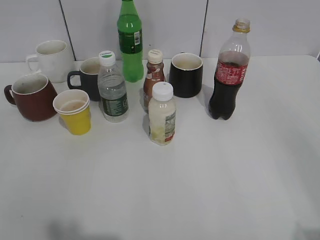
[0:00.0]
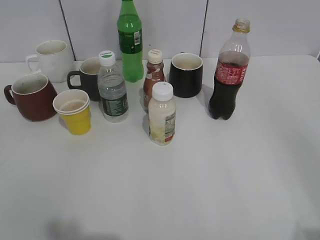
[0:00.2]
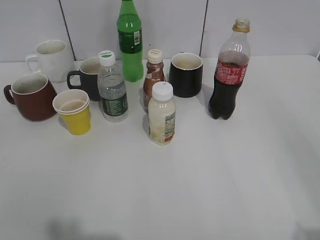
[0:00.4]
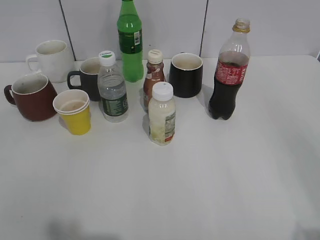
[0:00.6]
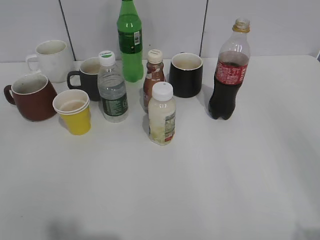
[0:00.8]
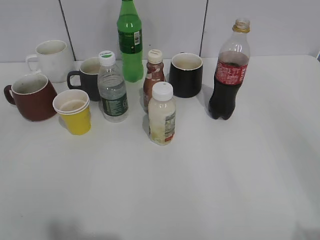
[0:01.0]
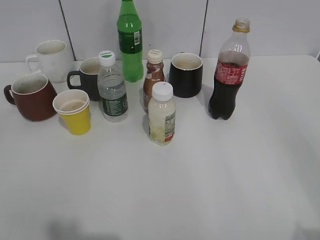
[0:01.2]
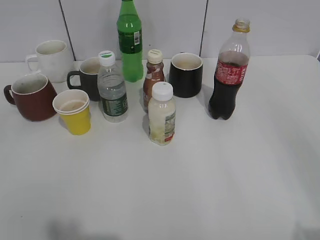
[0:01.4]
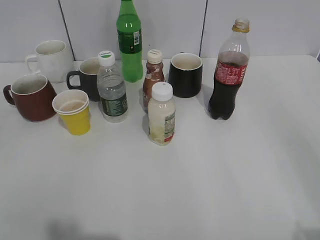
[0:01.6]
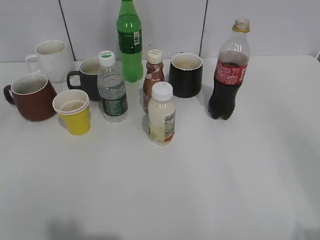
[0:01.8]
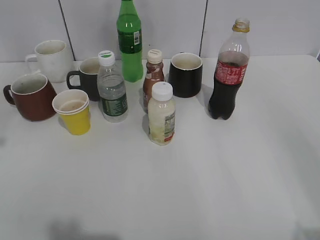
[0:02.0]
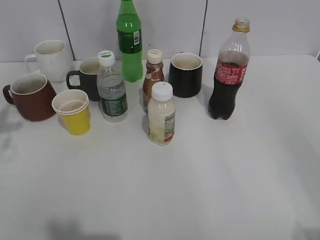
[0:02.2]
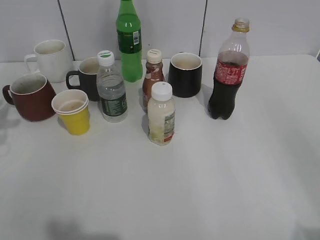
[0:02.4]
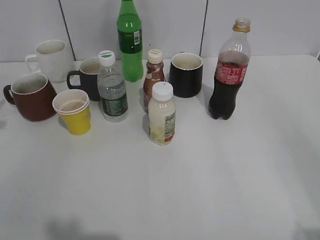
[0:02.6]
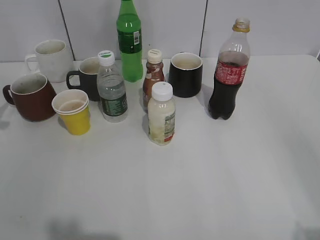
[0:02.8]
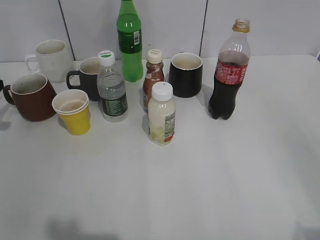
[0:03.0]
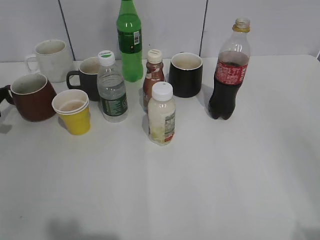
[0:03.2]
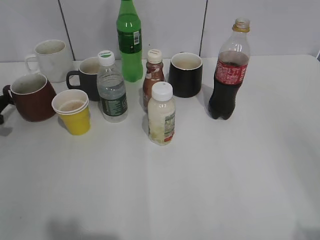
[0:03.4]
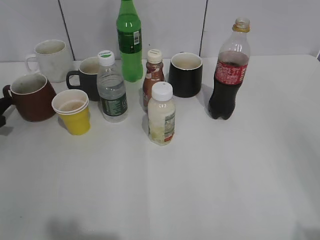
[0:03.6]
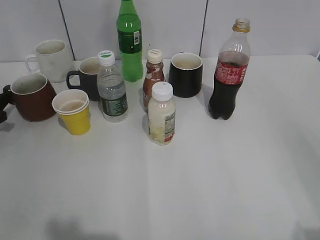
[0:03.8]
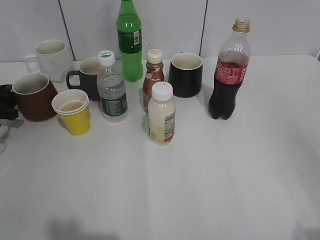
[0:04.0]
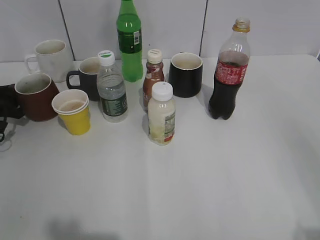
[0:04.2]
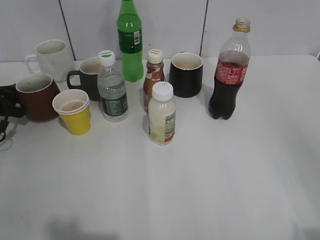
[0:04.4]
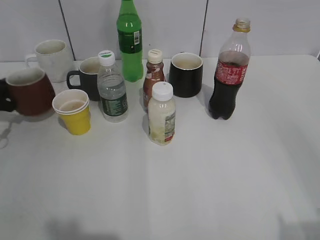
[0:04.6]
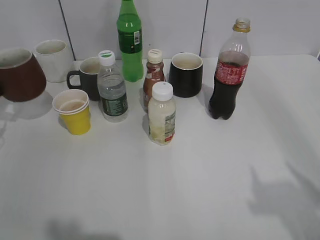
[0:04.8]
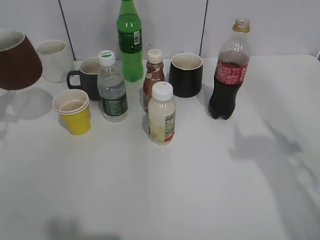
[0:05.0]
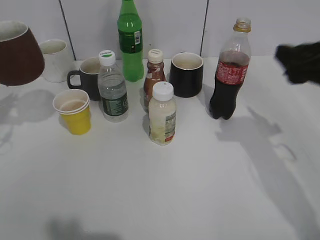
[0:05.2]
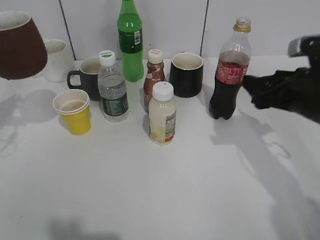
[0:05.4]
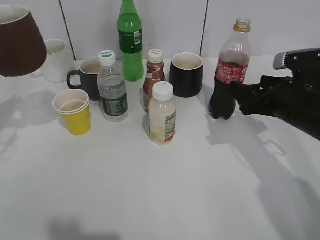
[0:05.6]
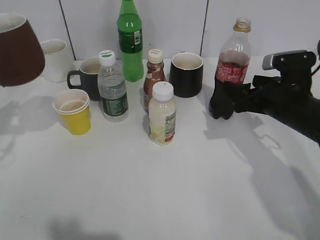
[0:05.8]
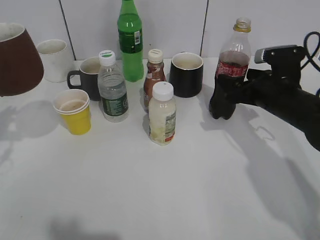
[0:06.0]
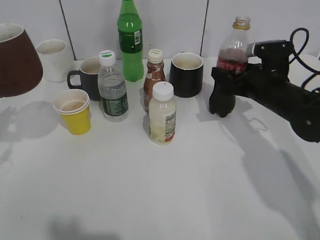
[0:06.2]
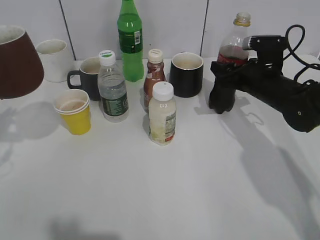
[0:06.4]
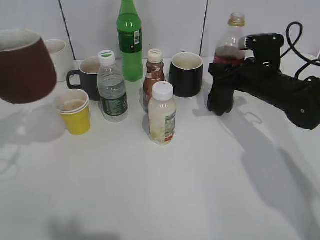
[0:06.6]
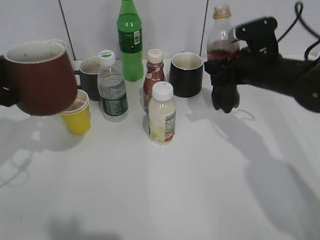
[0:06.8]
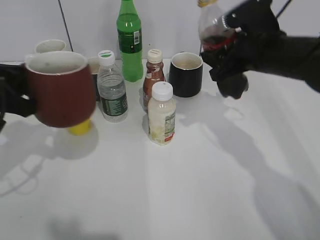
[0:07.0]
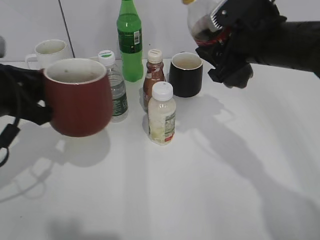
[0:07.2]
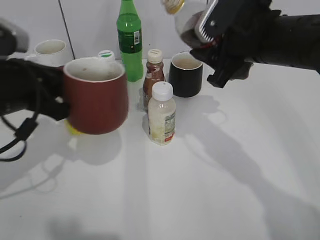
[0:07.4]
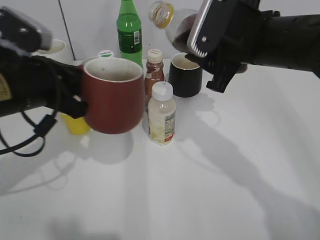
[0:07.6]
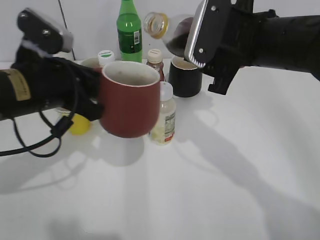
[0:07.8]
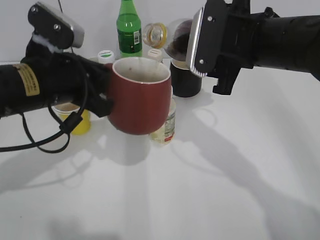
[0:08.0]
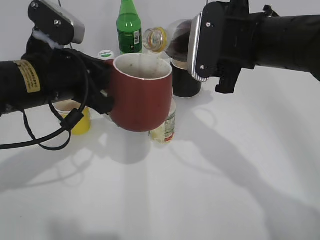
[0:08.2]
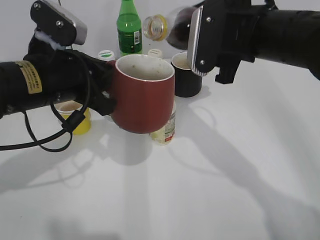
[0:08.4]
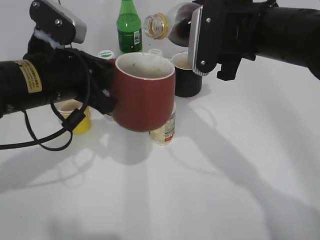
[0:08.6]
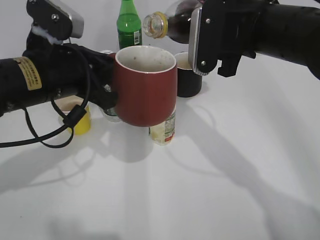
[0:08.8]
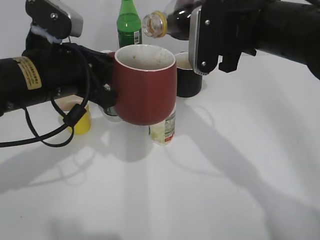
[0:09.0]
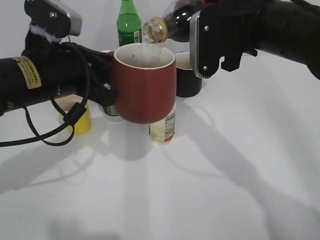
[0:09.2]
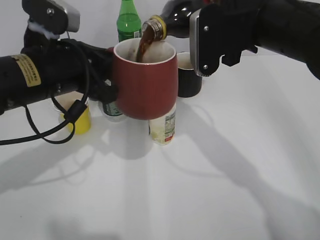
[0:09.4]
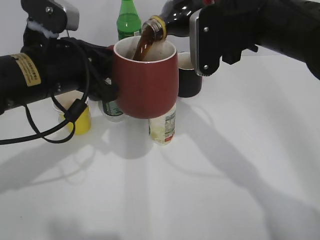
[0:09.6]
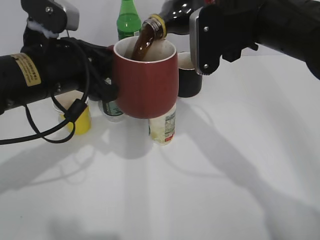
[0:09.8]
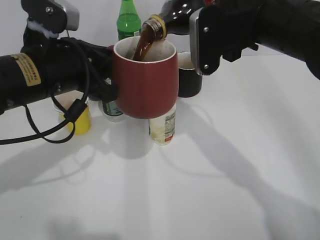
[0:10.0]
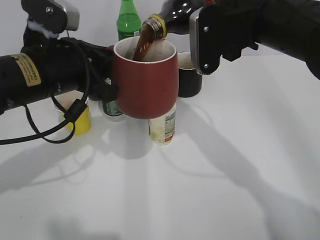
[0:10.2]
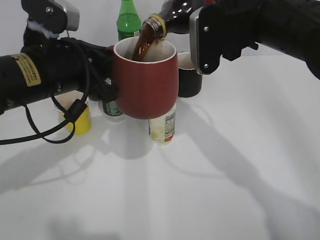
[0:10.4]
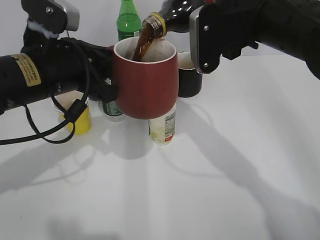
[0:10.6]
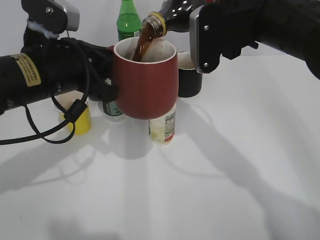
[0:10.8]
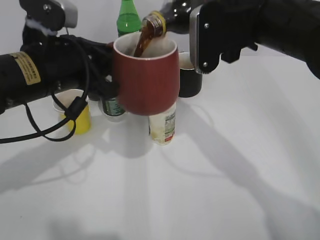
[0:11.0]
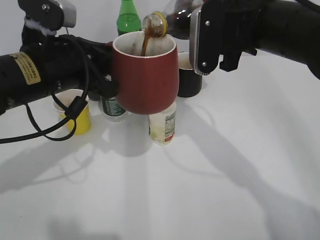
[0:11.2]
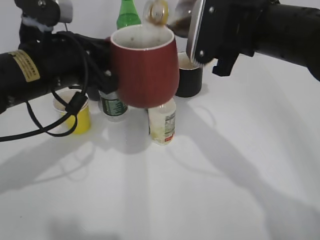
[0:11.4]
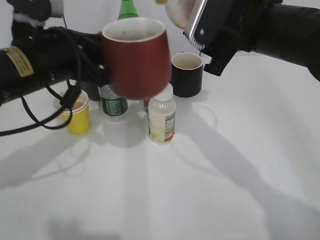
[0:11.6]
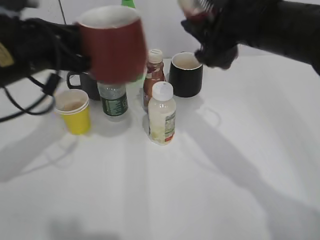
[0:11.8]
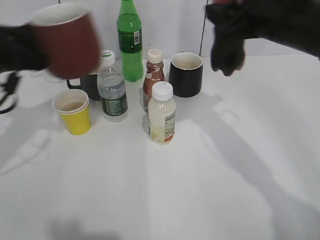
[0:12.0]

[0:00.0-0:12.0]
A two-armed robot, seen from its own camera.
Step, 0:01.4 to 0:04.2: Grasp the red cup with left gripper.
Step, 0:04.6 to 0:06.4: Lift the red cup with left gripper.
Step, 0:06.6 to 0:11.8: Pour the cola from bottle to cup with right gripper.
0:01.6 to 0:03.0: The left gripper moves forward and downward, approximately 40 cm.
0:03.0 to 0:04.4: The left gripper shifts approximately 5 cm downward, and closes its fingers.
0:04.4 to 0:06.0: The right gripper shifts some 35 cm forward and downward, and opens; the left gripper is displaced upward and backward by some 20 cm.
0:06.0 to 0:07.6: The right gripper is displaced upward and to the left by approximately 15 cm, and closes up; the left gripper travels to the right by approximately 15 cm.
0:09.0 to 0:10.4: The grippers make only small movements.
0:10.4 to 0:12.0: The left gripper travels to the left by roughly 10 cm.

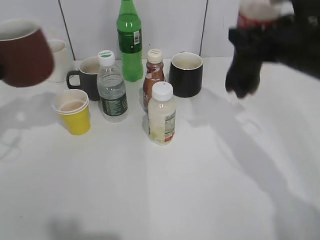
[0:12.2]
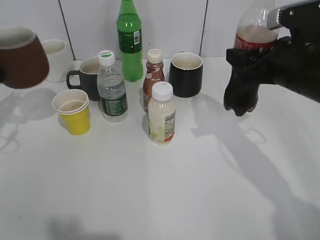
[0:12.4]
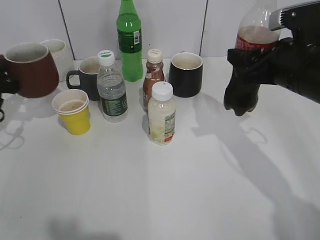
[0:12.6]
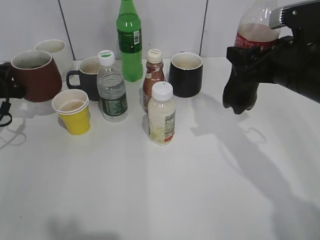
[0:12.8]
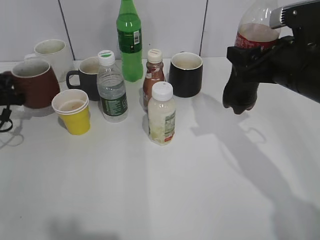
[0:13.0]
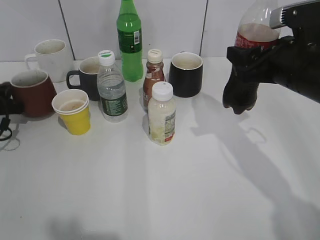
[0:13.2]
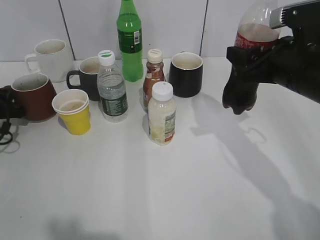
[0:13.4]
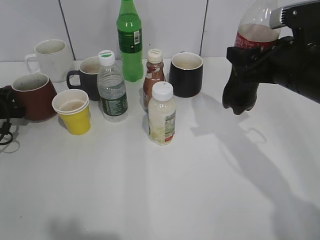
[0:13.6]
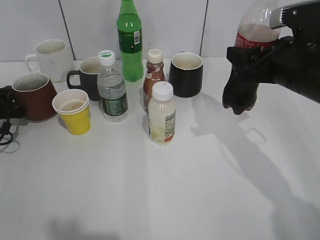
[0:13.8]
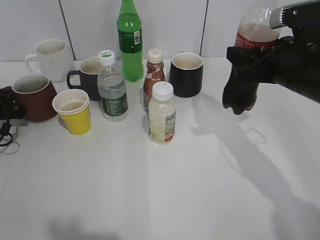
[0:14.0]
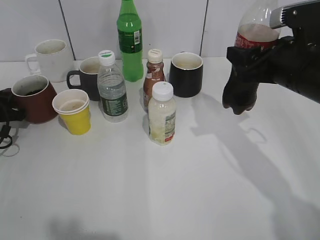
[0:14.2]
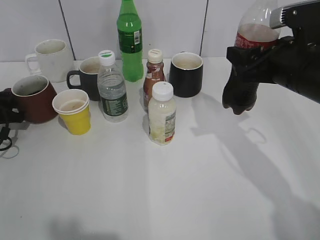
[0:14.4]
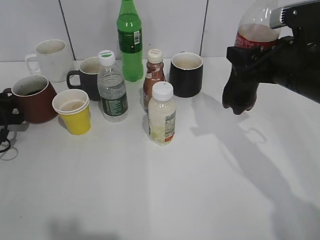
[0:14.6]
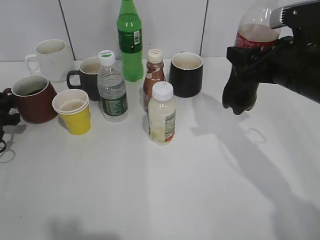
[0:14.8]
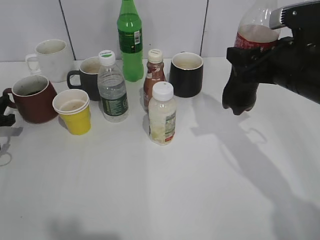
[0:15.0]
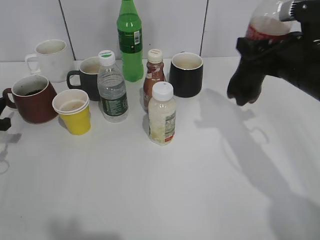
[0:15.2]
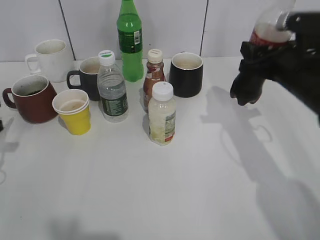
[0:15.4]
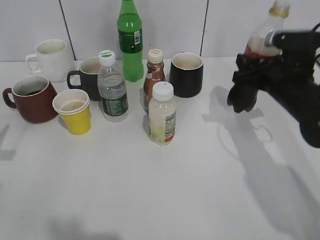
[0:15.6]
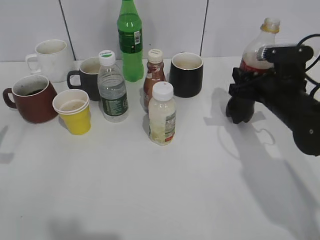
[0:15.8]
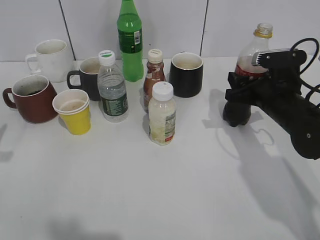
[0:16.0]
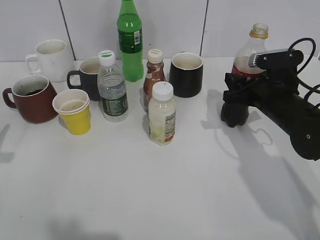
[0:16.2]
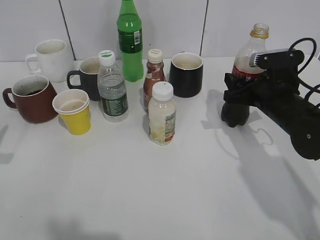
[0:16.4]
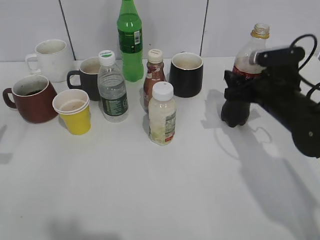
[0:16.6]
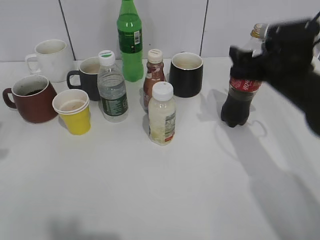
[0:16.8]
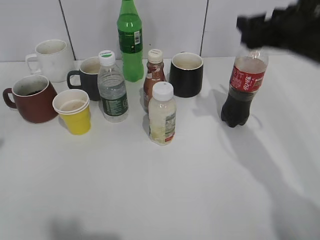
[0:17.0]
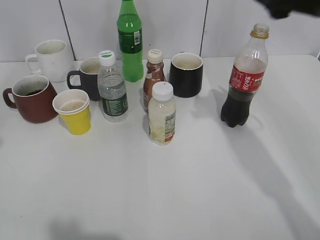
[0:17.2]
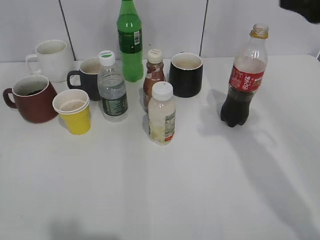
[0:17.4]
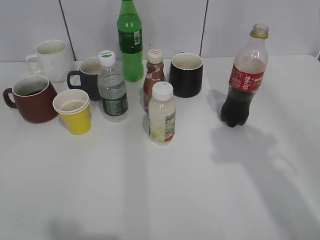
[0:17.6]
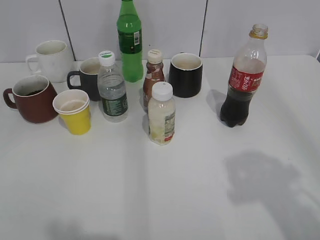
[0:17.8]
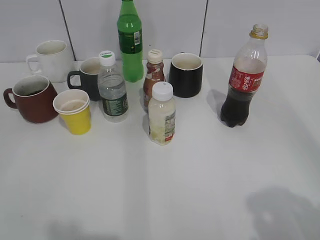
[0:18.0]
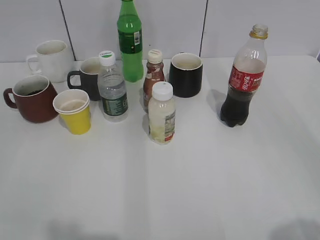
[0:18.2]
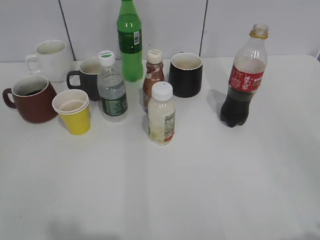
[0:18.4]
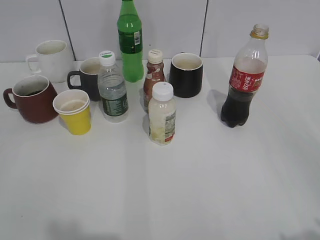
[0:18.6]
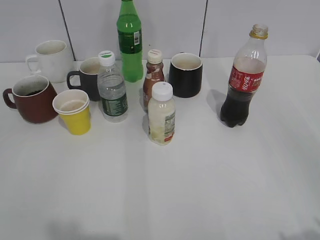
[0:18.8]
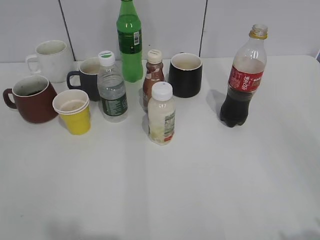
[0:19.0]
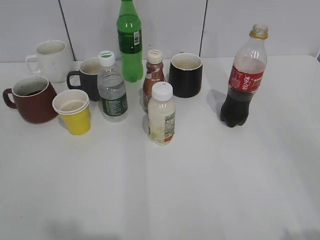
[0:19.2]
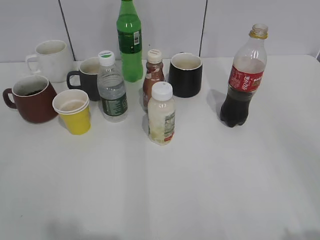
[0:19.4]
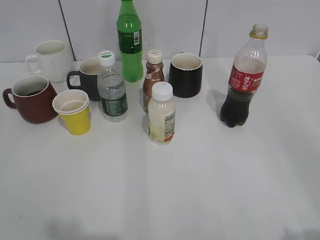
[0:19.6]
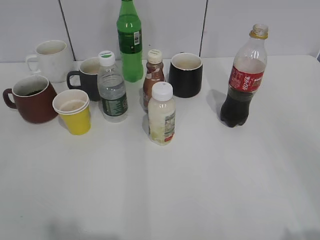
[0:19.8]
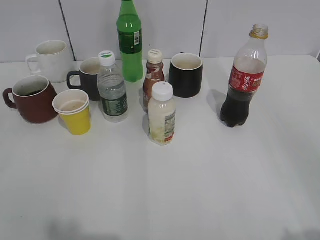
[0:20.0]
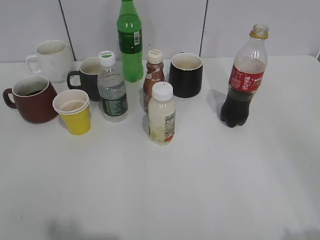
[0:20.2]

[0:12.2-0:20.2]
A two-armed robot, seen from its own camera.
Step, 0:12.2 to 0:16.8: Place the cola bottle on the table with right gripper.
0:12.2 to 0:13.8: The left gripper goes approximately 20 cm downward and forward.
0:13.8 to 0:15.4: The left gripper is displaced backward and upward by some 10 cm, and opens up.
0:15.4 to 0:17.0: The right gripper travels upward by roughly 5 cm, and opens. The left gripper heads upward and backward, covering approximately 15 cm.
0:17.0 to 0:18.6: The right gripper shifts roughly 35 cm backward.
